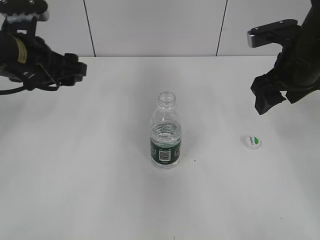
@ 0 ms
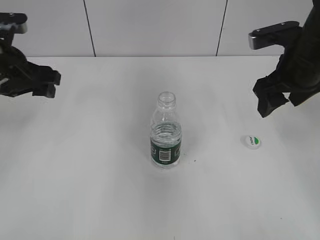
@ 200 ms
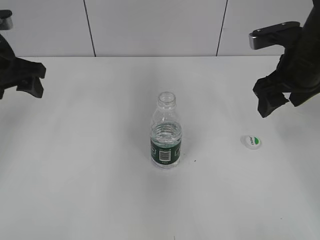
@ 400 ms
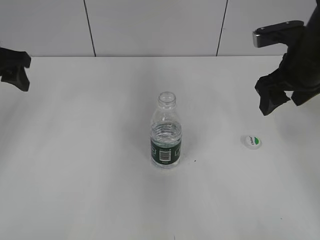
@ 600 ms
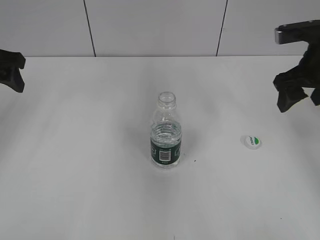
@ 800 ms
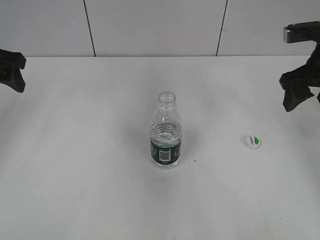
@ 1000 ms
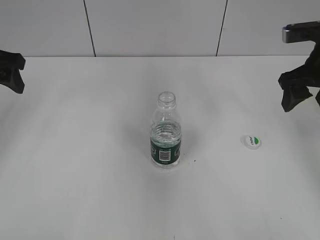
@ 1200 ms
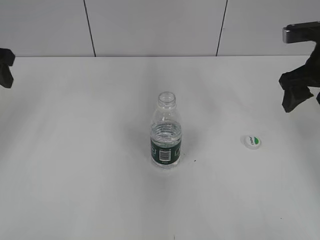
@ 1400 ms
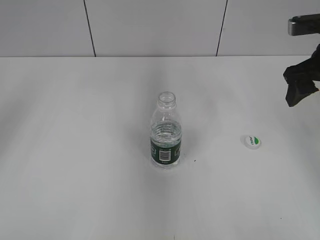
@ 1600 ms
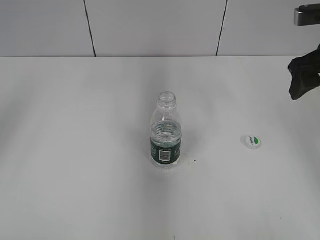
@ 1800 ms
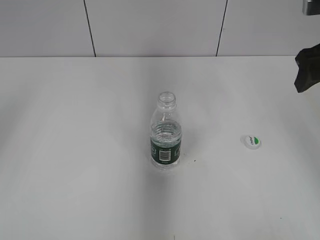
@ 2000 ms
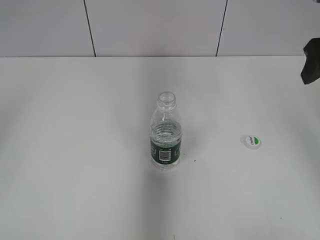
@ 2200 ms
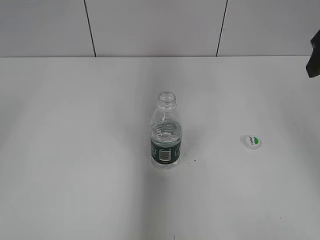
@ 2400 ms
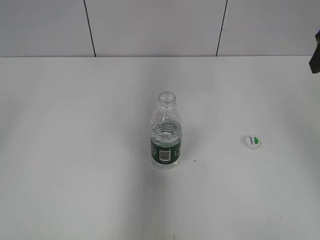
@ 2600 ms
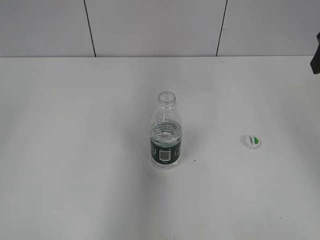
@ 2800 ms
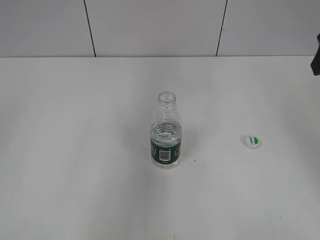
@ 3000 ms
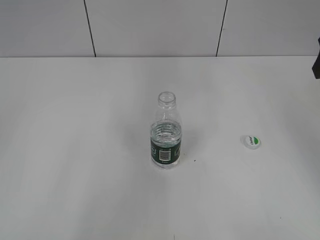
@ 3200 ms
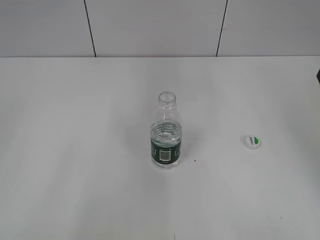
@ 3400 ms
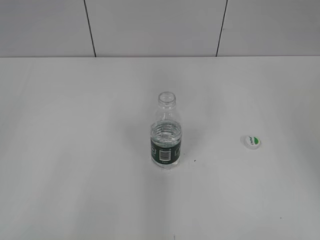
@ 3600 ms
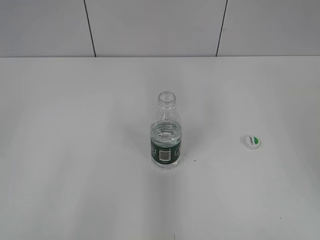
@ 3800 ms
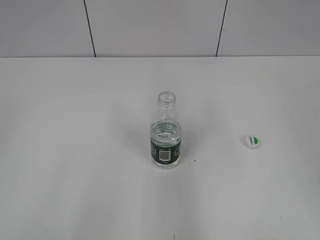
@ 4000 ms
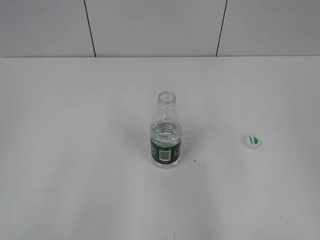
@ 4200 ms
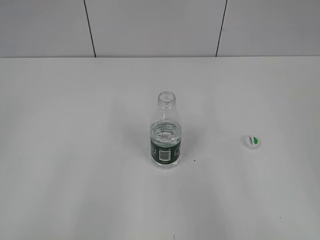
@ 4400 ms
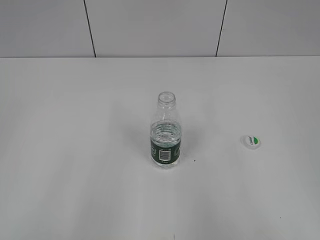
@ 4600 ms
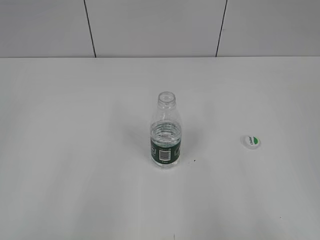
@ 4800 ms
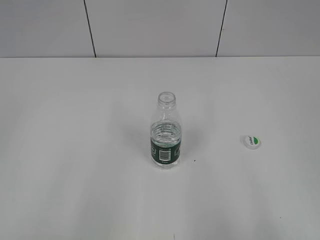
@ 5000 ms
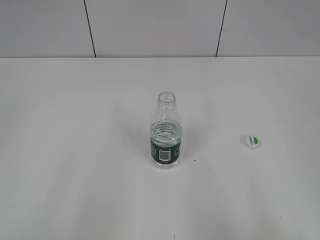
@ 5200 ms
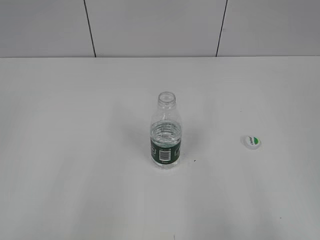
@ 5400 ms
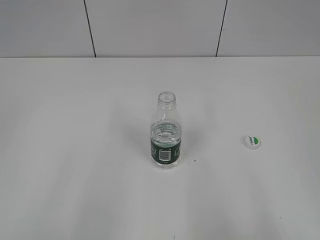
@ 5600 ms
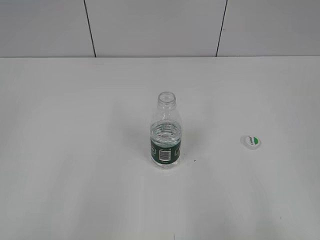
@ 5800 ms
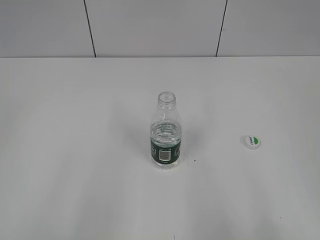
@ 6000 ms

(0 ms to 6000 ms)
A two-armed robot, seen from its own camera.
0 ms - 1600 ms: The left gripper travels to the left and upward by approximately 15 cm; the right gripper is displaced to the right by some 5 cm.
1600 ms - 3000 ms: The right gripper heads upward, covering approximately 10 cm.
3000 ms - 4400 ms: The left gripper shifts by roughly 5 cm, while the right gripper is displaced backward by some 25 cm.
